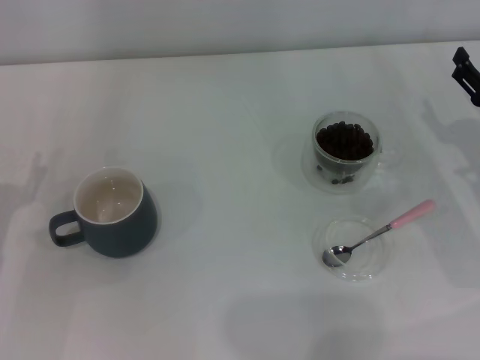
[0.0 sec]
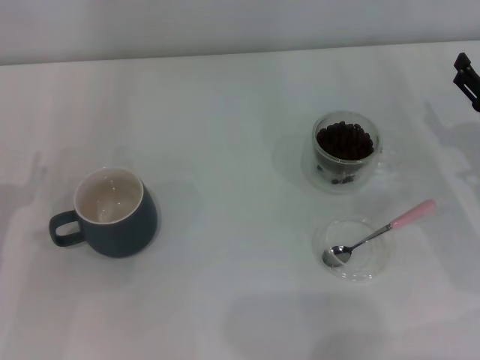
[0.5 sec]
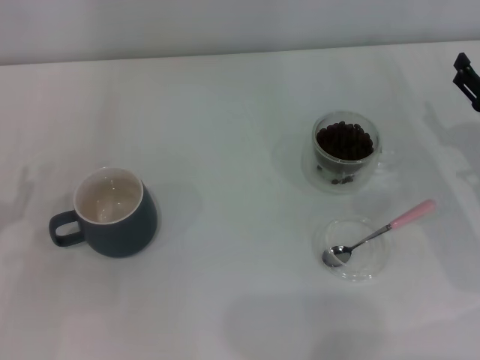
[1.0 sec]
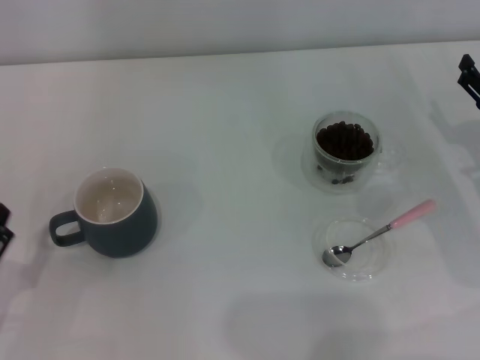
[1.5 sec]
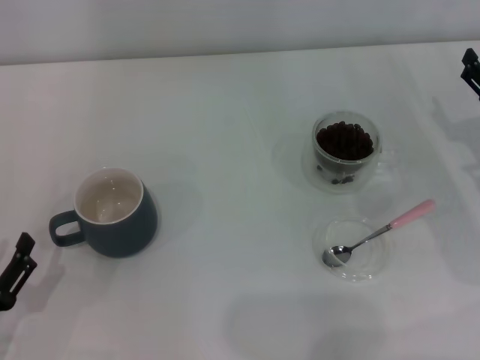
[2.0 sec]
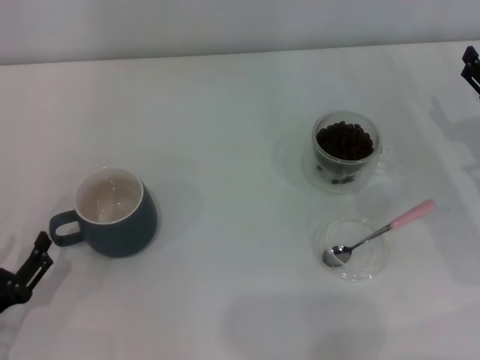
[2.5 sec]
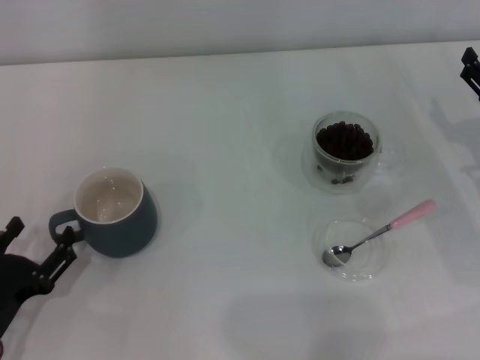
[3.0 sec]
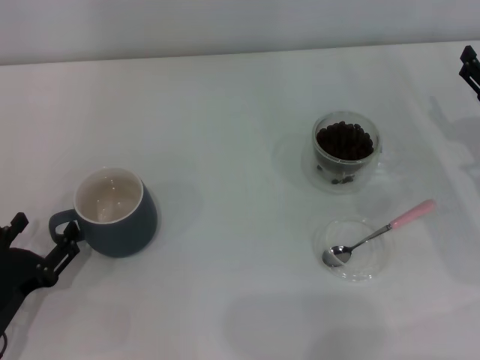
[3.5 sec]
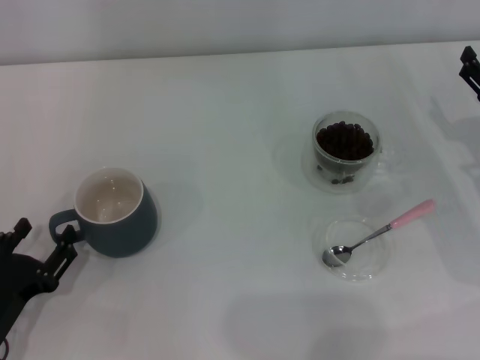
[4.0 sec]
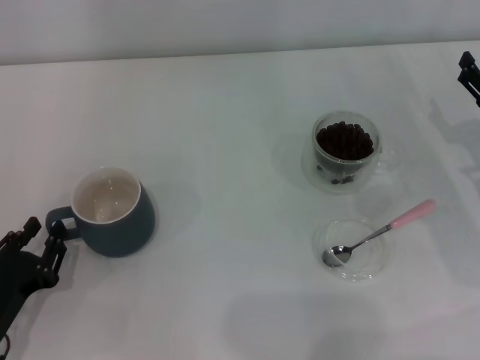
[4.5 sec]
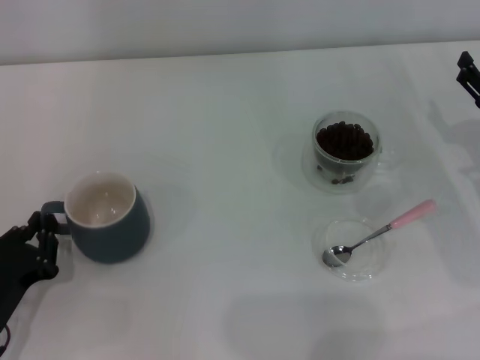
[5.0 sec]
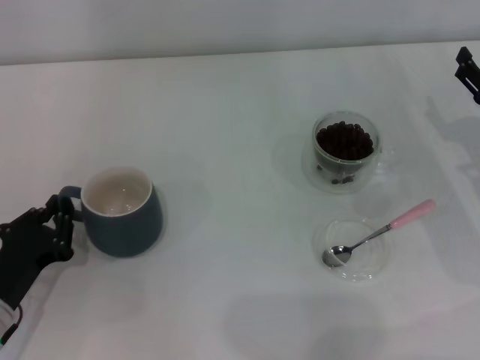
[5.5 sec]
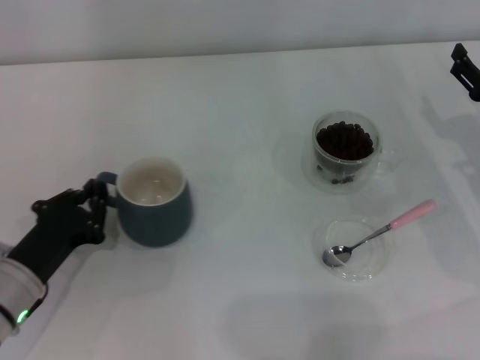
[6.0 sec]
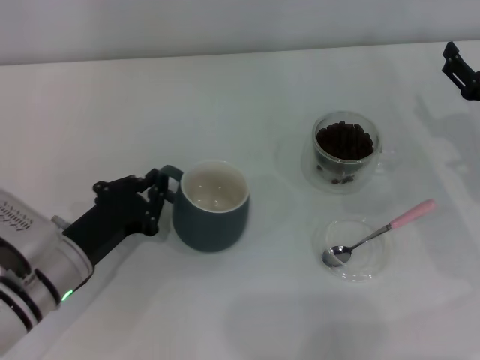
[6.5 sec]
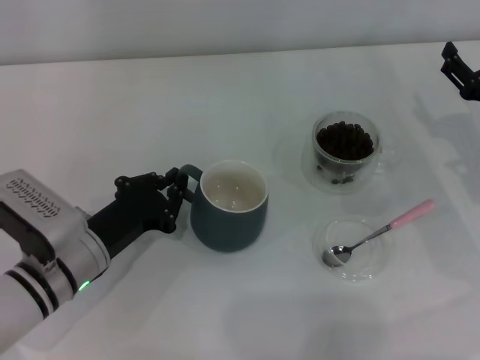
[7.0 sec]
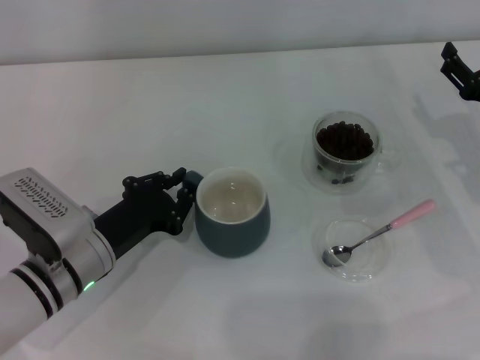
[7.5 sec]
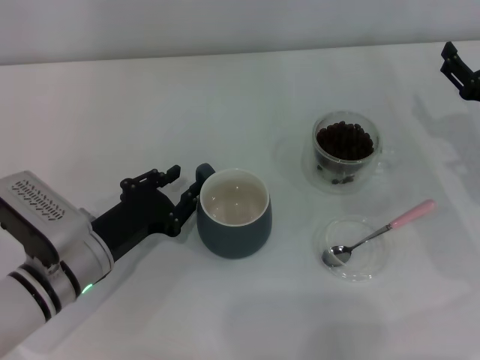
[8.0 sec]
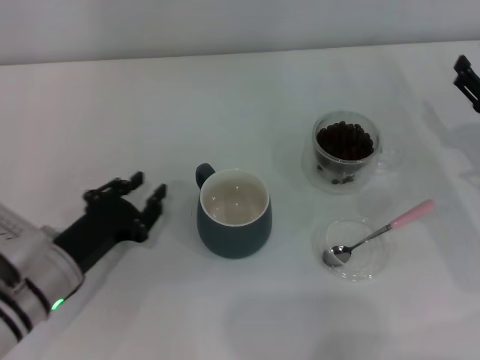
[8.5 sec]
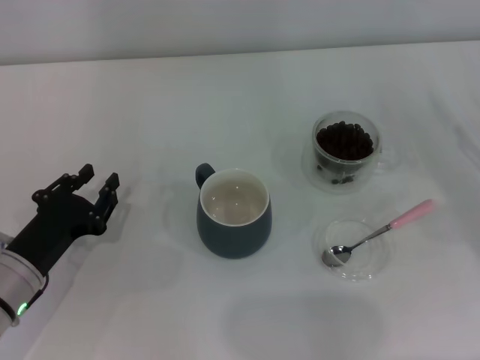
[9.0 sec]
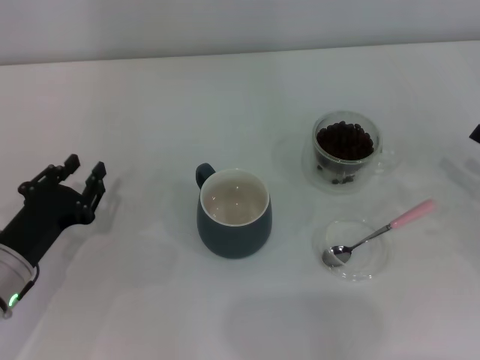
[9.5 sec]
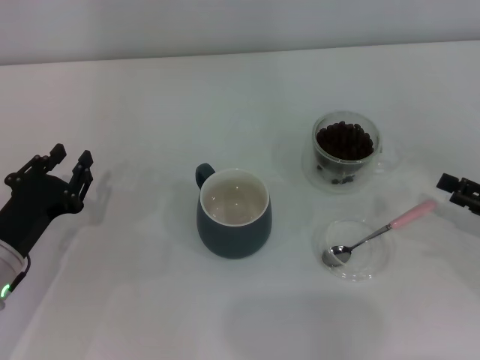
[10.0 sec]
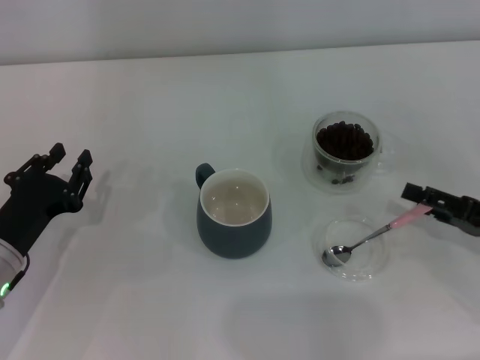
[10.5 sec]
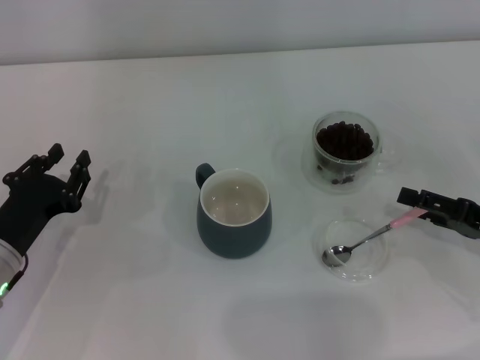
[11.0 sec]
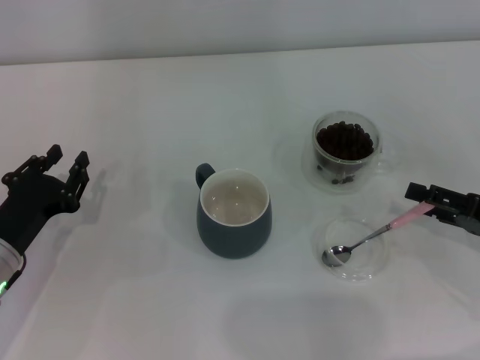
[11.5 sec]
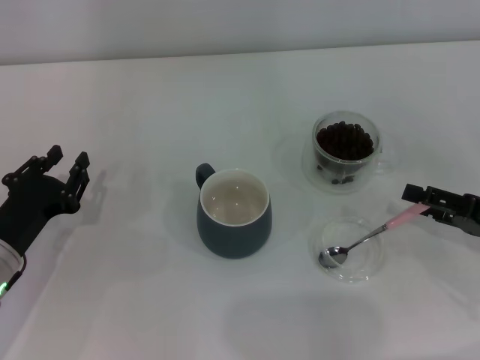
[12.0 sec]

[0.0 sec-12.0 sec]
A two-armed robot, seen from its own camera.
Task of the whole recording: Use a pink spoon to take out the coffee beans from the glass and pour them into the gray cup.
Step, 0.0 sec to 8.0 sec: Move the cup to the center of view with the left gripper.
0.0 sec to 2.0 sec: The left gripper travels backward by some 10 cm.
2.0 sec to 4.0 sec: The grippers move only a little.
4.0 sec to 6.0 sec: The left gripper shifts some 5 cm forward, and closes.
6.0 sec to 8.0 sec: The left gripper travels to the right by roughly 5 cm.
8.0 sec to 10.0 sec: The right gripper moves backward and to the right, approximately 10 cm; the left gripper travels to the left by some 5 cm.
10.0 sec to 12.0 sec: The grippers stay close to where they were, moving slightly.

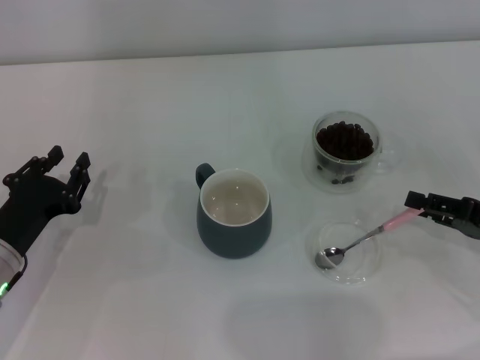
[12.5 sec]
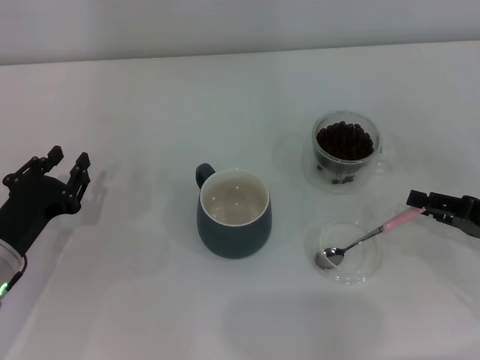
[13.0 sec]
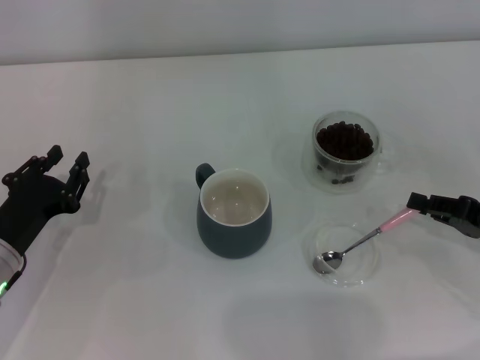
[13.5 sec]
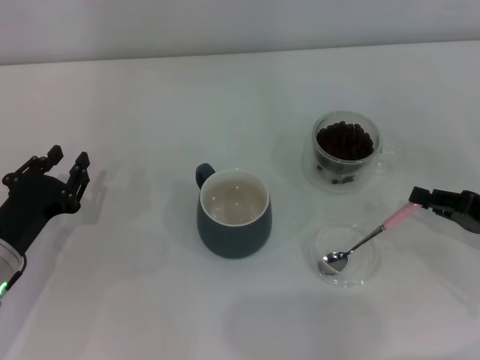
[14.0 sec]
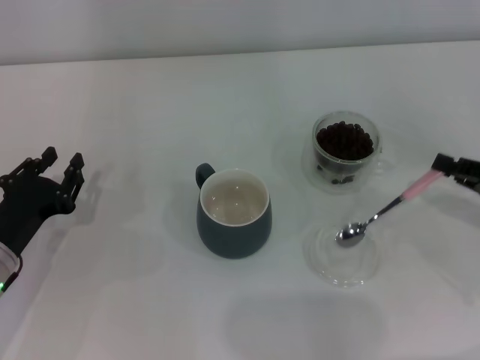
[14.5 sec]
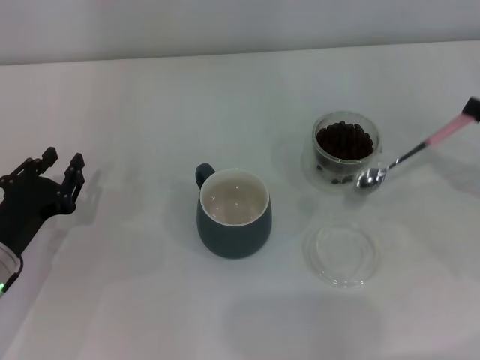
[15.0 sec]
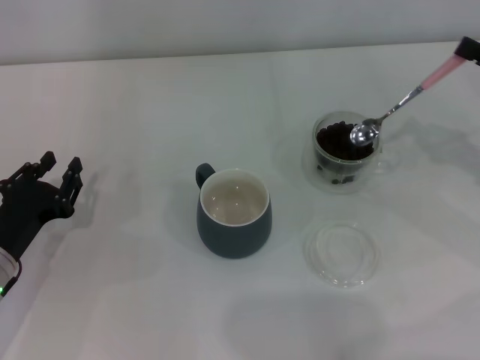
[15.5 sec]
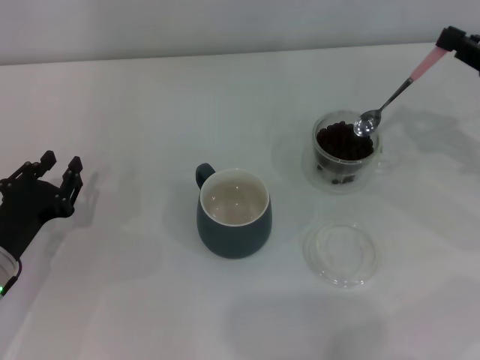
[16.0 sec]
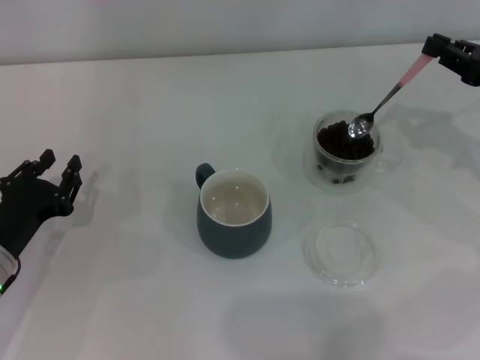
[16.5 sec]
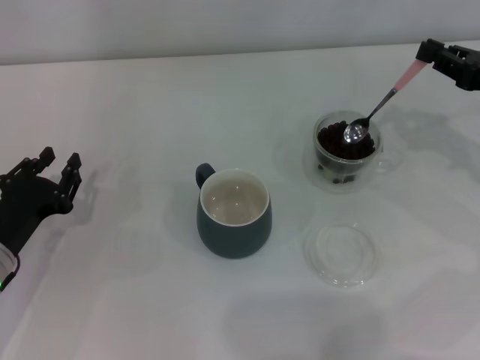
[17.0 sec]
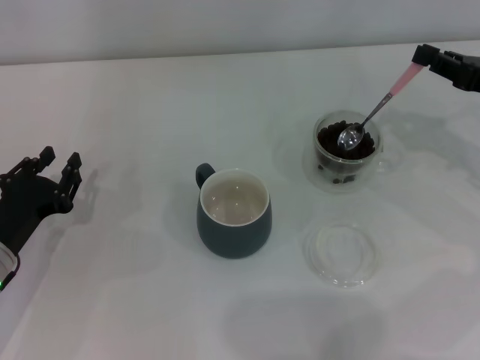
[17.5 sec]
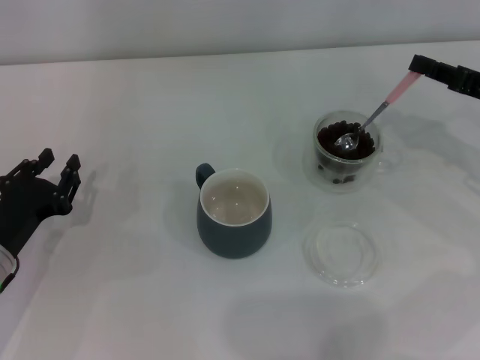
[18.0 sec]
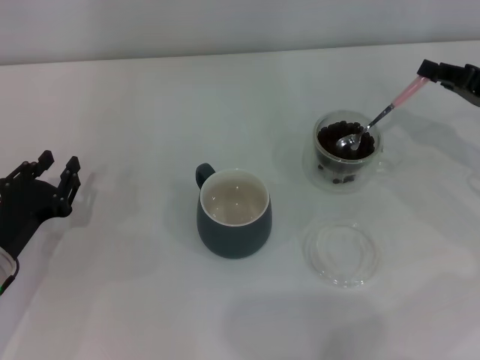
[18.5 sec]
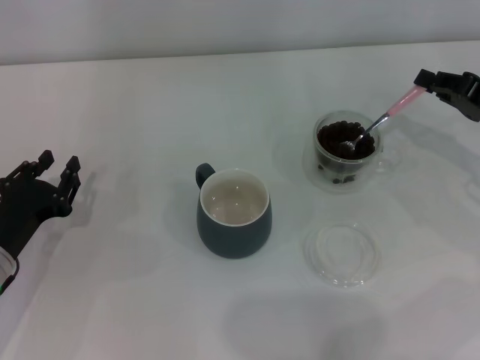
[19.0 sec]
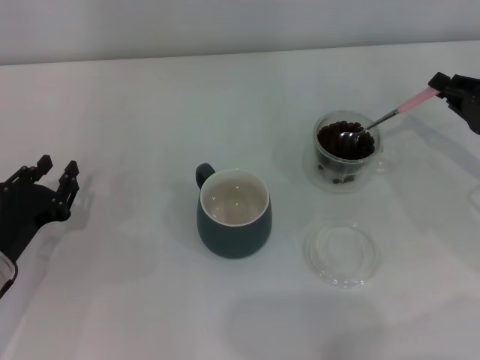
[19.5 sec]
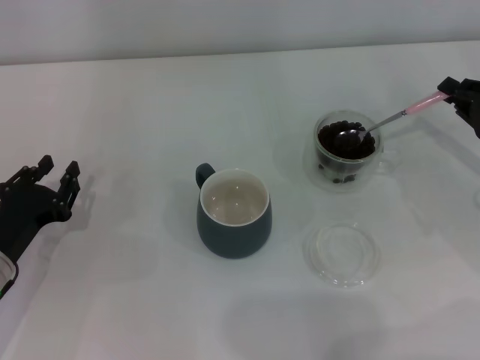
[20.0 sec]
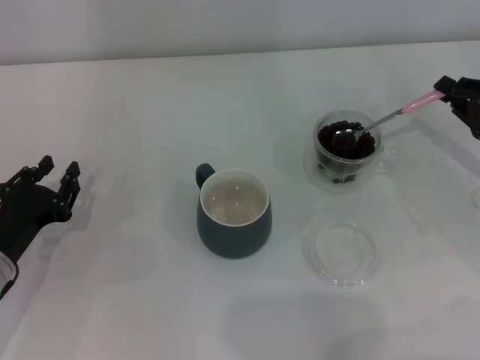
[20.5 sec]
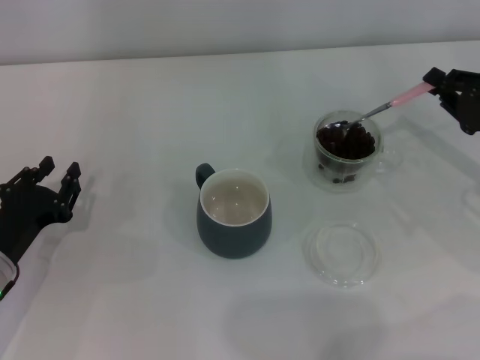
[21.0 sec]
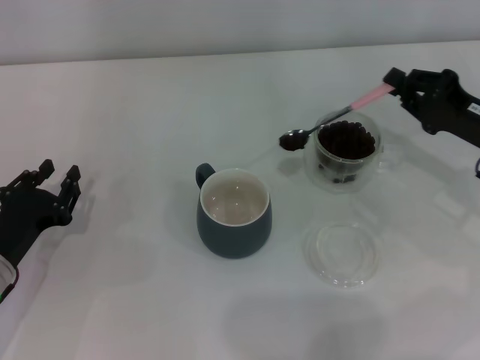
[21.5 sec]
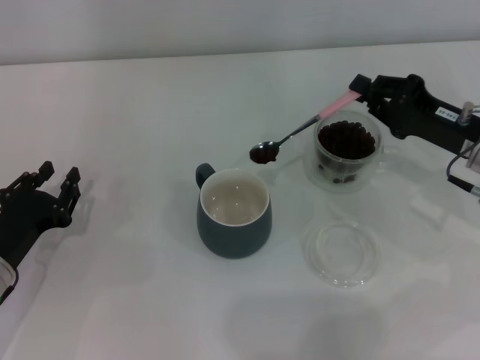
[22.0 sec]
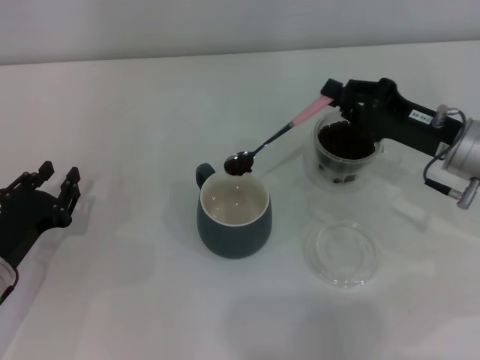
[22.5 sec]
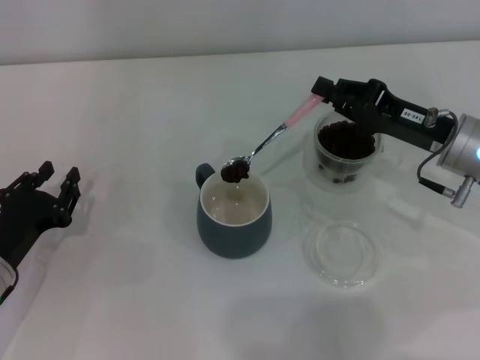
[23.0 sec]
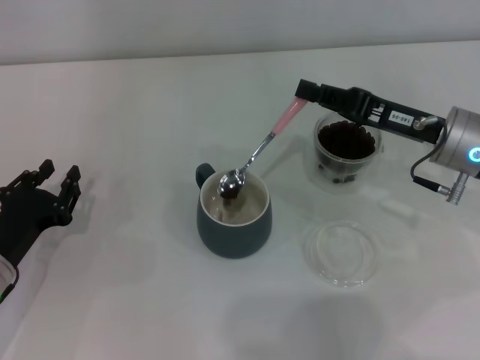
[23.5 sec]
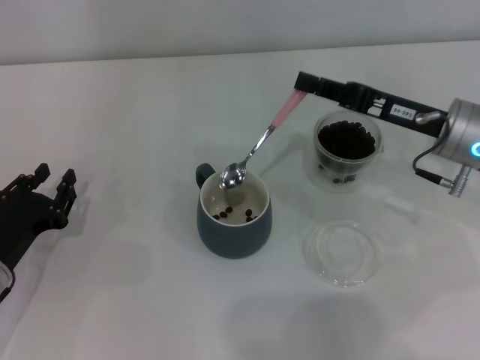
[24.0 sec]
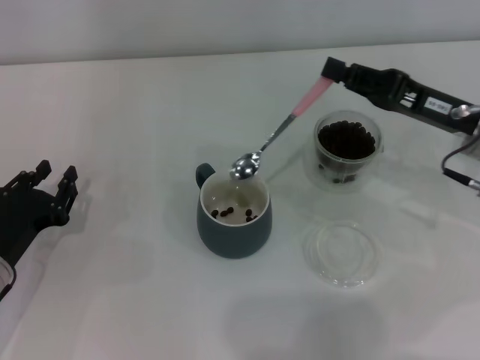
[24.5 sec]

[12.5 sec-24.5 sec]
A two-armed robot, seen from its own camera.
Task of the whole recording: Use a pink spoon to take out the coffee beans from the glass and pour them into the gray cup.
Step, 12.5 sec to 14.5 sec: Pick up the spoon with the right gripper.
Step, 15.0 sec to 24.0 sec: Scoop a spoonful of beans into the cup with the right gripper.
12.5 sec to 14.5 sec: The right gripper closes.
14.5 sec to 16.5 sec: The right gripper goes approximately 10 cm forward and upward.
20.5 sec to 22.5 sec: The right gripper heads to the left, covering about 10 cm.

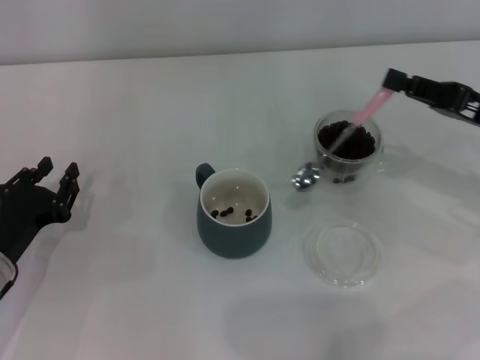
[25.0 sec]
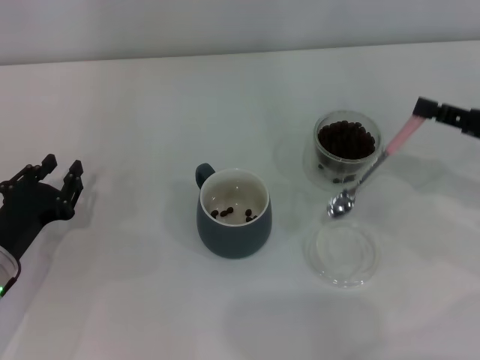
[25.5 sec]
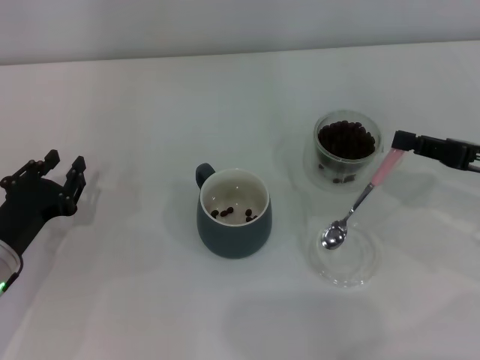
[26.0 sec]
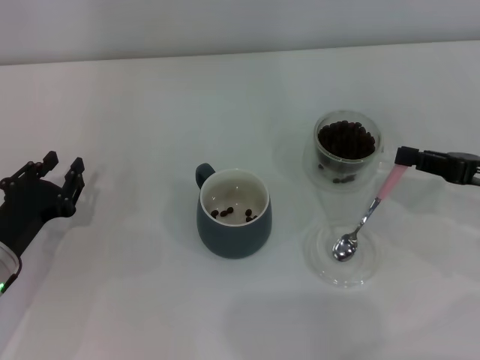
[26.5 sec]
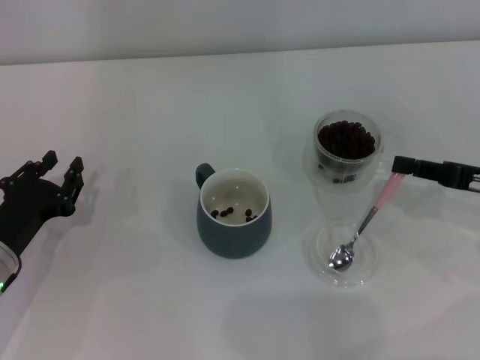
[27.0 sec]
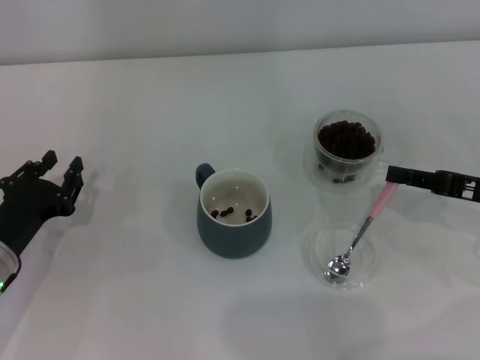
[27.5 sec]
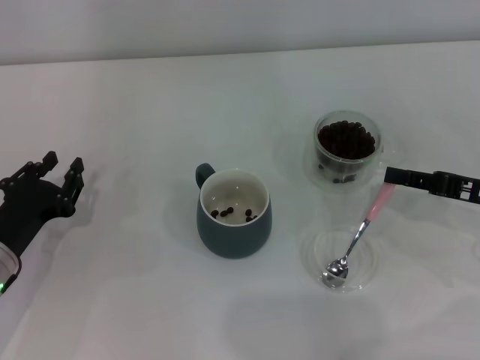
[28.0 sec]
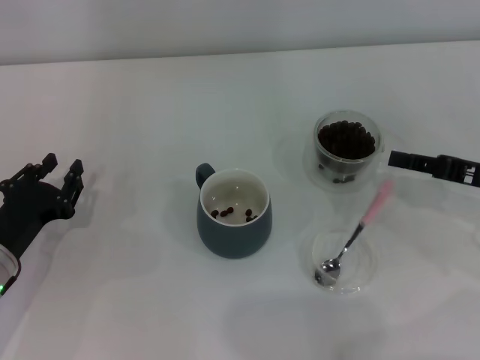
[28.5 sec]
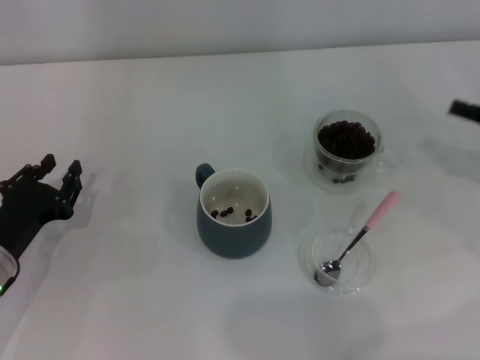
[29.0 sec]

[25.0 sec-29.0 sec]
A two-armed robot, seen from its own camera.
Task of the whole recording: Use a pink spoon to take out the coffee beans from the glass and pour them into the gray cup.
Step, 25.0 sec to 28.0 sec: Place the spoon back in its original place with the right gripper.
25.0 sec to 27.0 sec: There are only small adjustments of the grippers.
27.0 sec to 29.0 sec: There are only small adjustments of the grippers.
